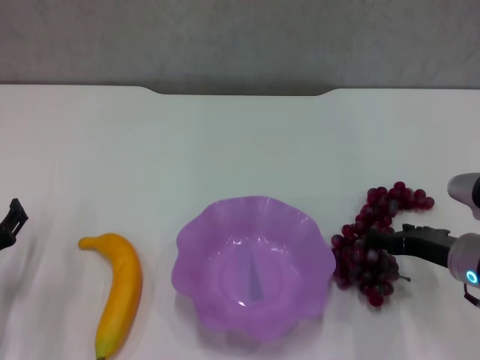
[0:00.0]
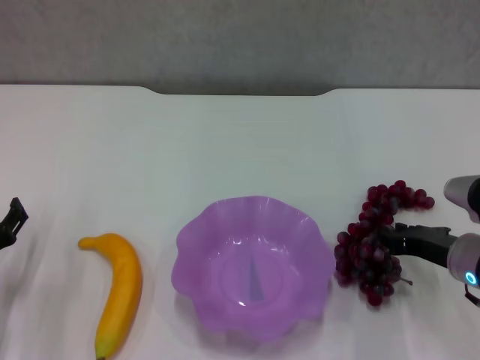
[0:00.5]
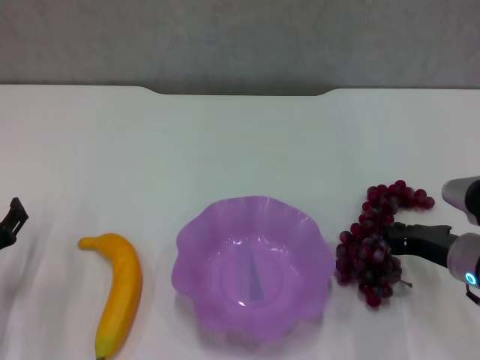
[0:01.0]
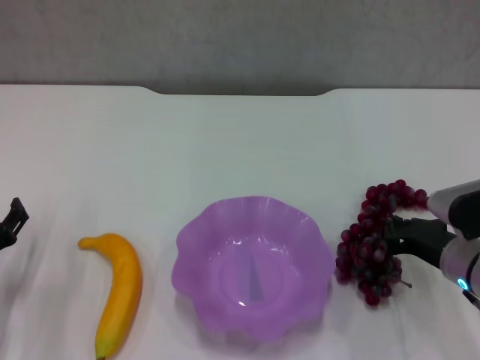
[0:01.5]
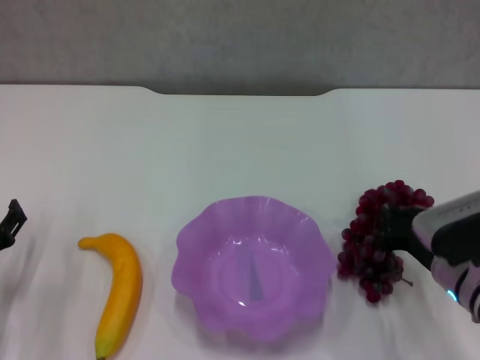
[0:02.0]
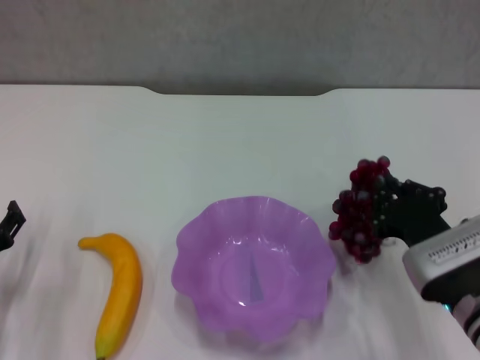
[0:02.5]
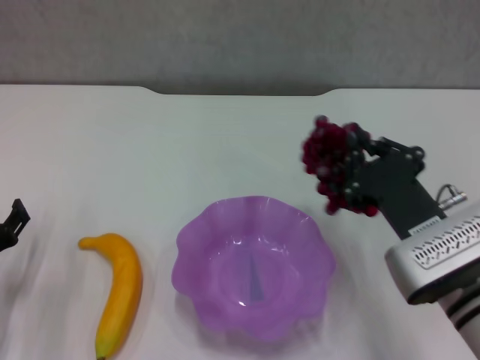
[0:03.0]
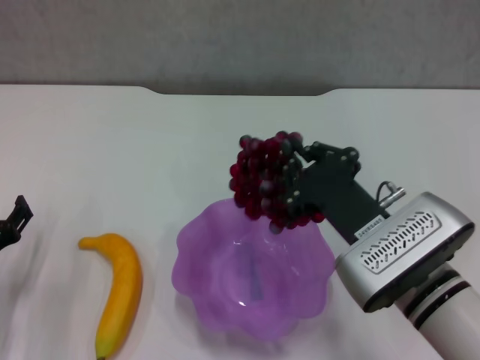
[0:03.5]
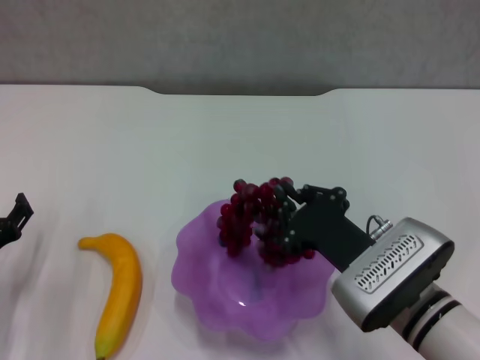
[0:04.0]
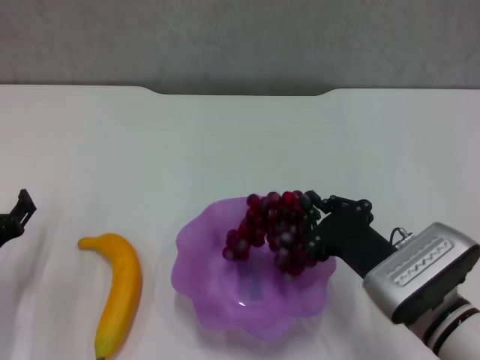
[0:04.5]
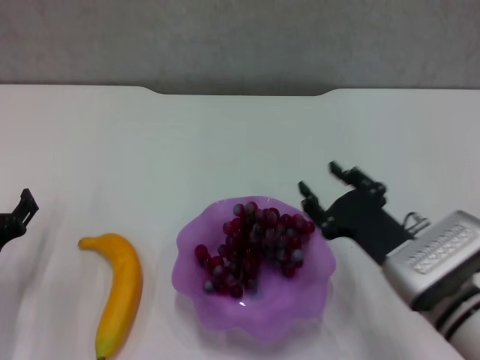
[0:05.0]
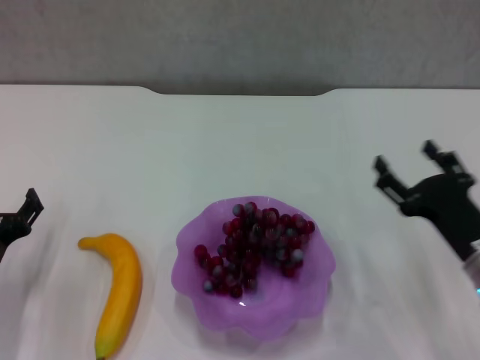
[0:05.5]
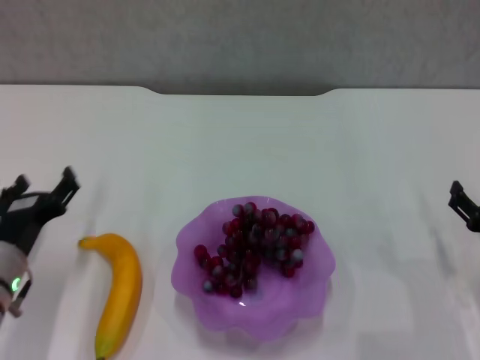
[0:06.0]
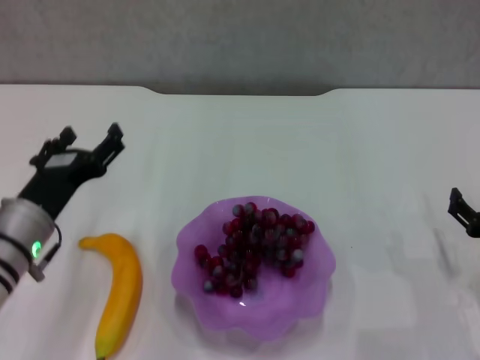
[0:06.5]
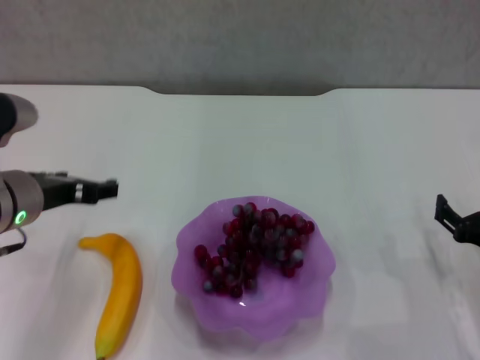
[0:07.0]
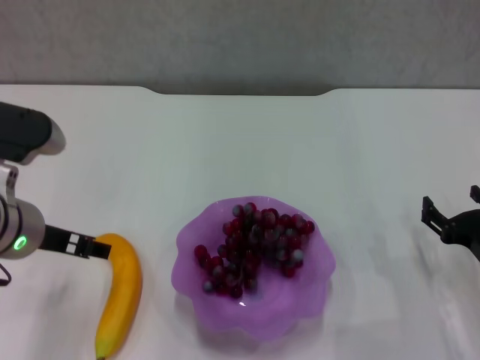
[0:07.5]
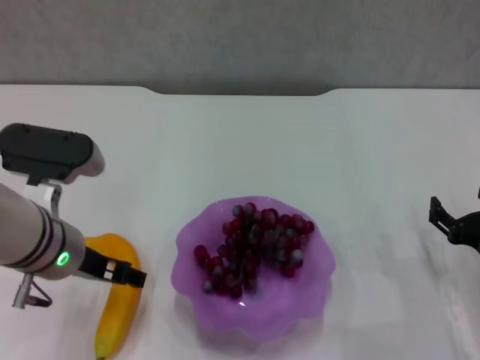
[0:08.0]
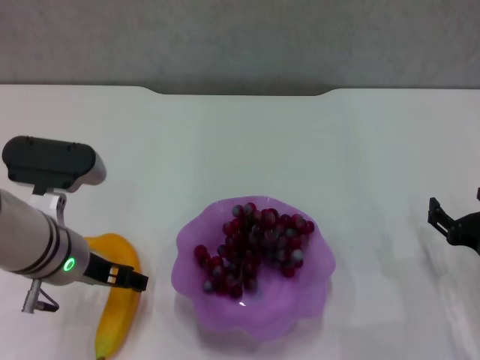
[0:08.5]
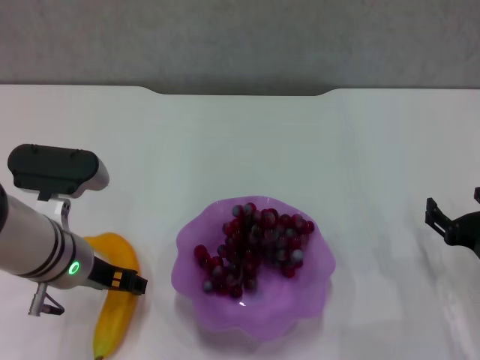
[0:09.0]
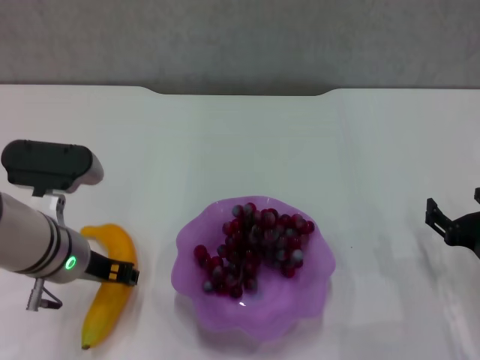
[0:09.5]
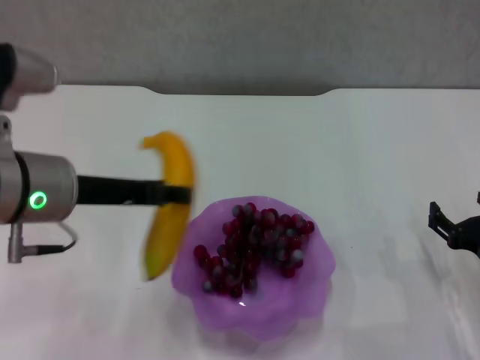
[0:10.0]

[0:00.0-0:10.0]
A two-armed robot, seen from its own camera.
Step, 0:01.5 to 0:05.0: Place the grape in the purple plate with right gripper.
Step, 0:05.5 to 0:09.0: Grasp the banana with left gripper.
0:00.0 to 0:02.0: The right gripper closes up.
0:02.0 to 0:04.0: The right gripper shifts some 10 cm to the left.
0:04.0 to 0:06.0: The right gripper heads to the right, covering about 15 cm, and opens.
0:06.0 to 0:08.0: The left gripper moves upward and to the right, approximately 15 cm.
0:08.0 to 0:10.0: The left gripper shifts roughly 5 cm upward, and closes.

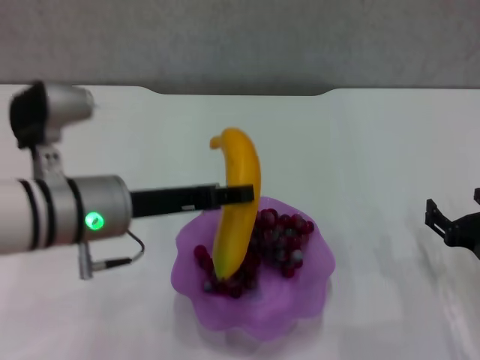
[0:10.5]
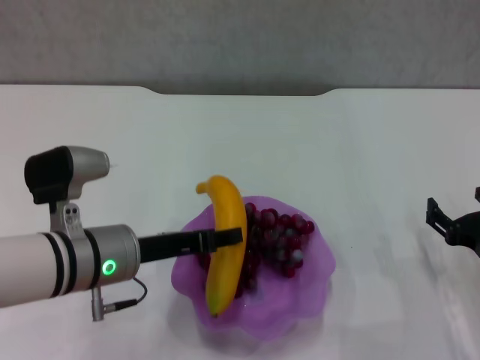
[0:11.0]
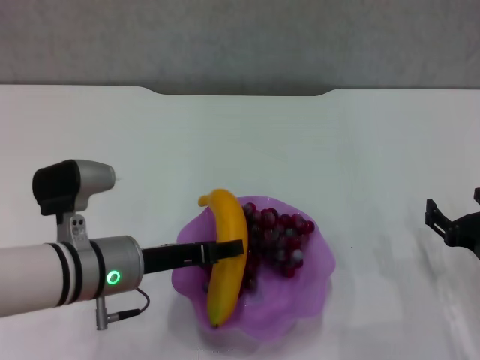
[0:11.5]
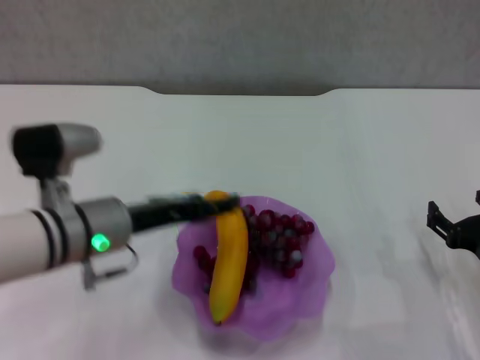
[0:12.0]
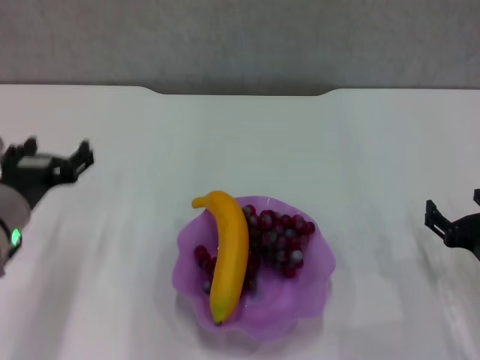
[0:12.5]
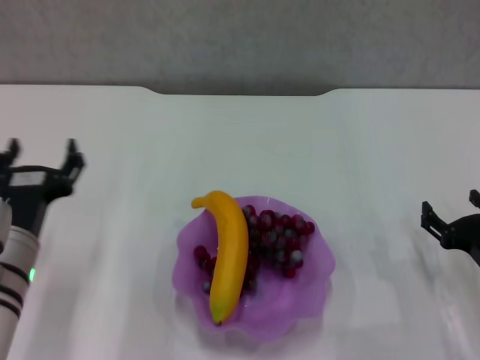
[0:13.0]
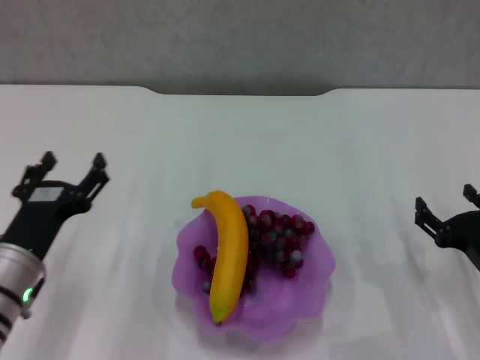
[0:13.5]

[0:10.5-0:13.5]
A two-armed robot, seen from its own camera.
Step, 0:10.5 to 0:12.0: Place the banana in the purple plate with left gripper.
0:10.5 to 0:12.0: The left gripper opens its fingers.
0:12.0 to 0:13.5: The left gripper moves to the left and downward, about 10 cm, and opens.
